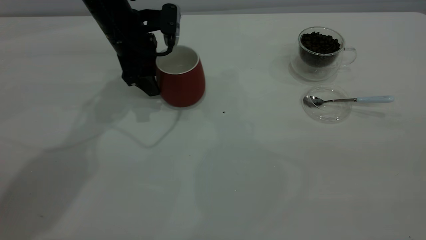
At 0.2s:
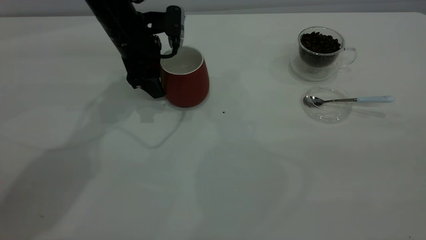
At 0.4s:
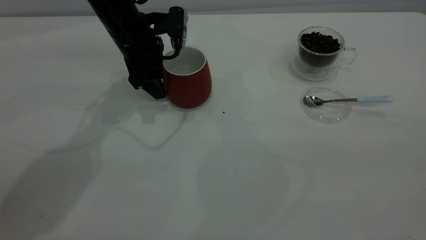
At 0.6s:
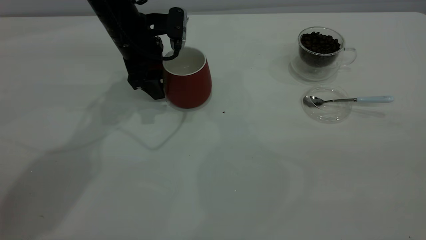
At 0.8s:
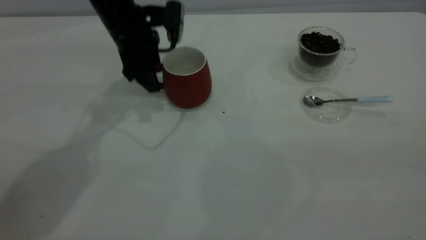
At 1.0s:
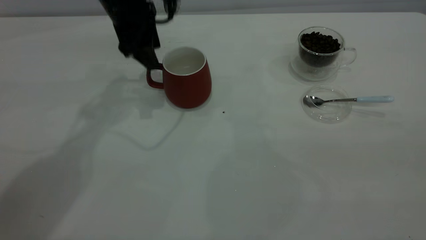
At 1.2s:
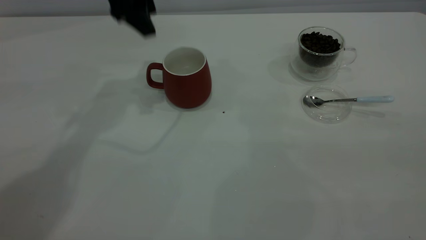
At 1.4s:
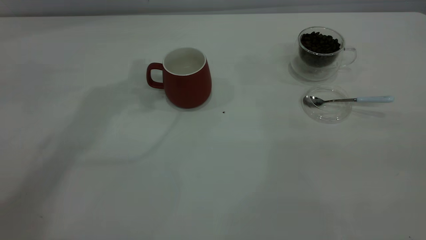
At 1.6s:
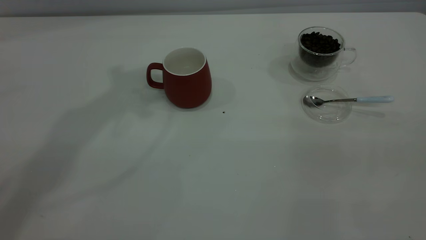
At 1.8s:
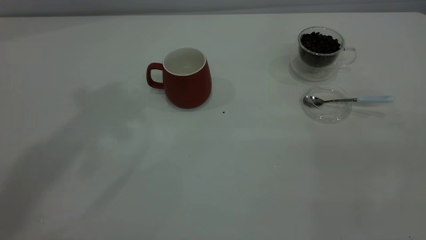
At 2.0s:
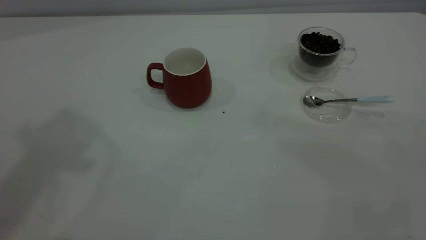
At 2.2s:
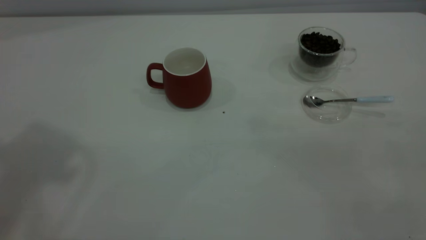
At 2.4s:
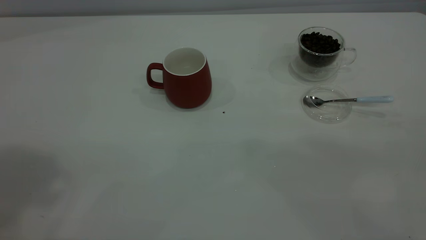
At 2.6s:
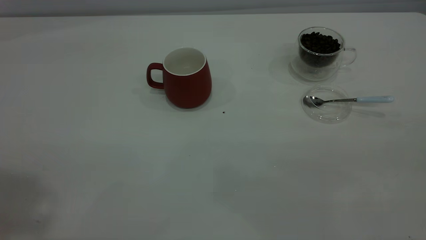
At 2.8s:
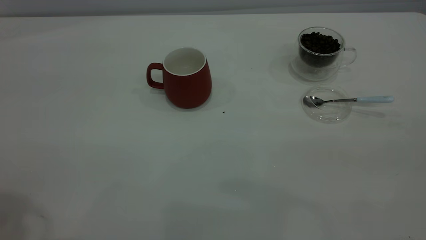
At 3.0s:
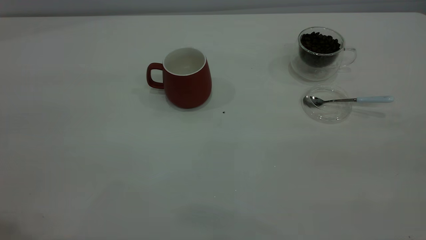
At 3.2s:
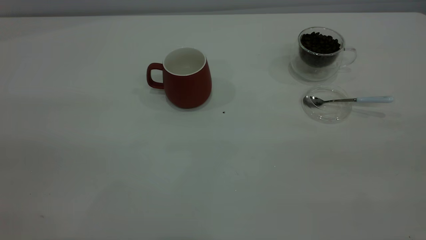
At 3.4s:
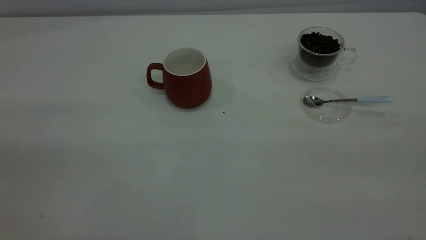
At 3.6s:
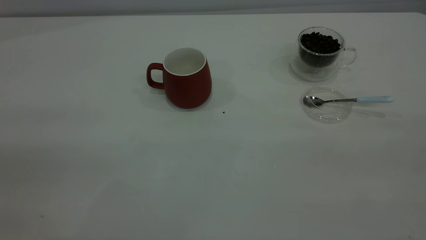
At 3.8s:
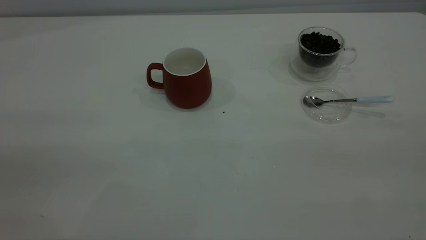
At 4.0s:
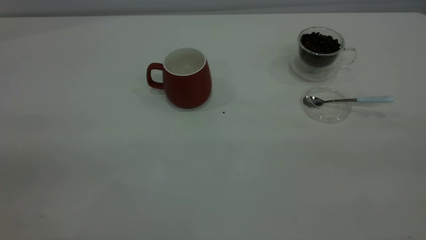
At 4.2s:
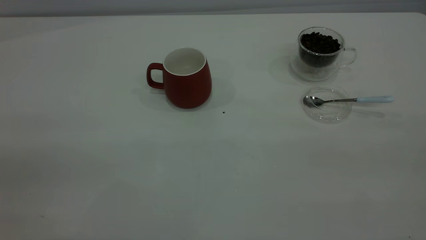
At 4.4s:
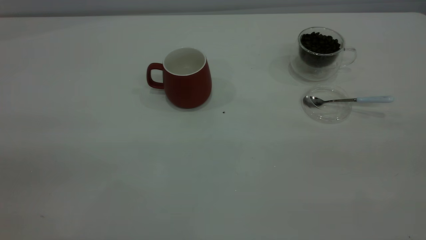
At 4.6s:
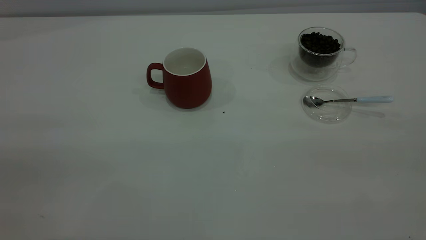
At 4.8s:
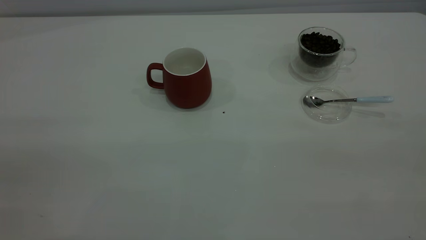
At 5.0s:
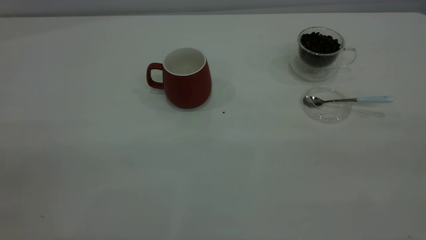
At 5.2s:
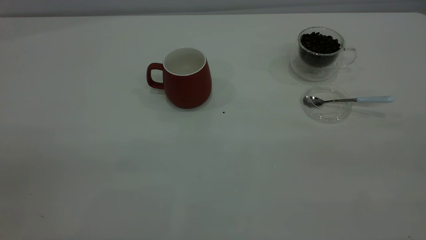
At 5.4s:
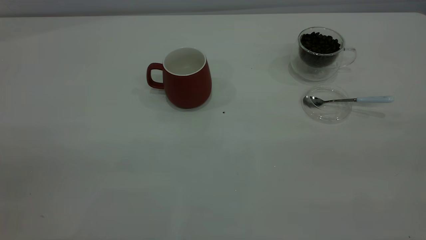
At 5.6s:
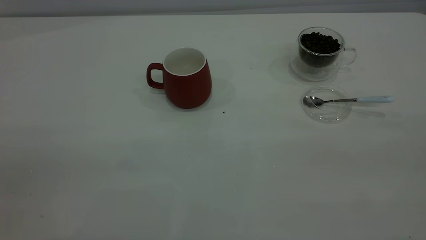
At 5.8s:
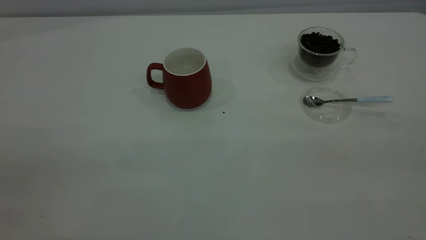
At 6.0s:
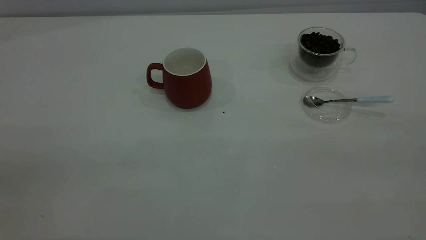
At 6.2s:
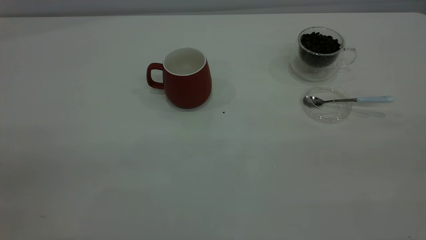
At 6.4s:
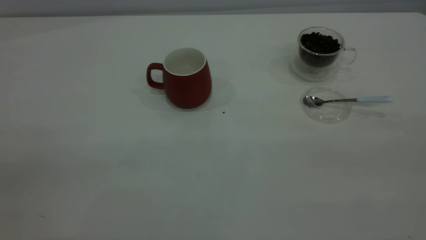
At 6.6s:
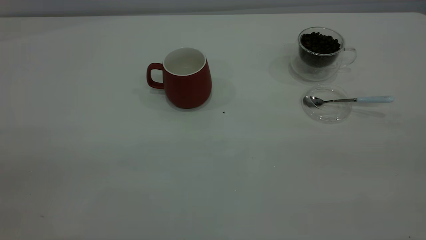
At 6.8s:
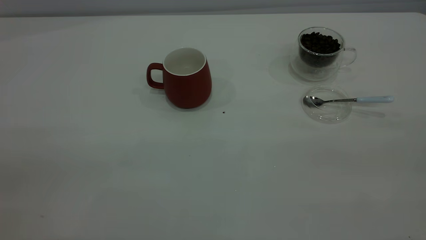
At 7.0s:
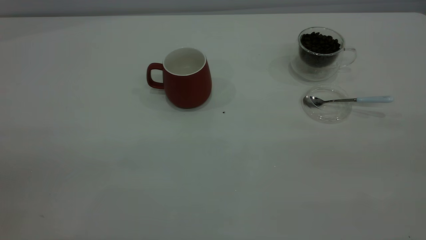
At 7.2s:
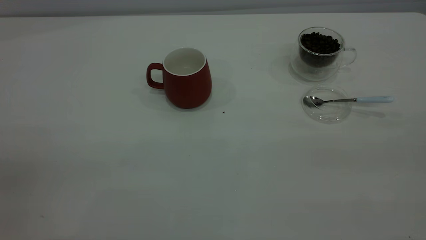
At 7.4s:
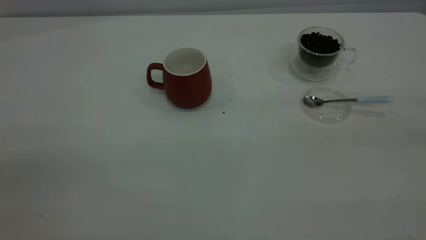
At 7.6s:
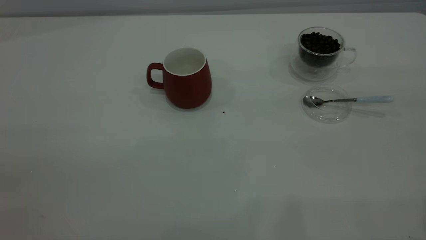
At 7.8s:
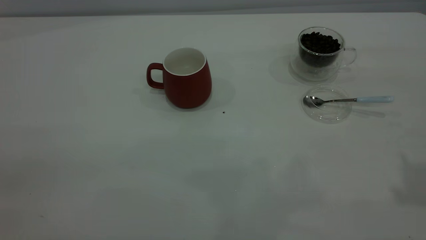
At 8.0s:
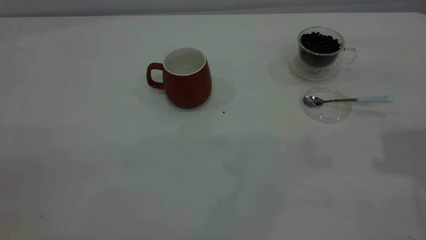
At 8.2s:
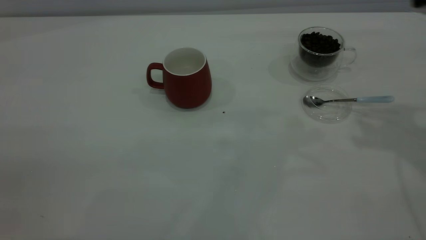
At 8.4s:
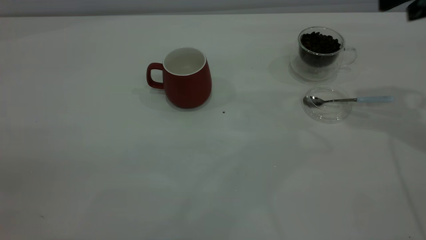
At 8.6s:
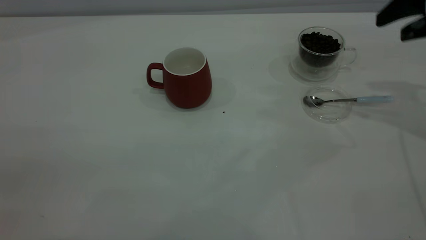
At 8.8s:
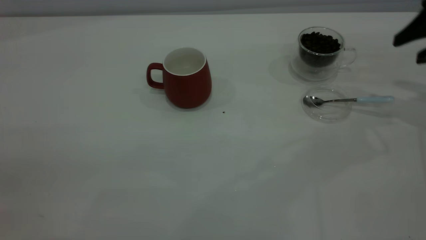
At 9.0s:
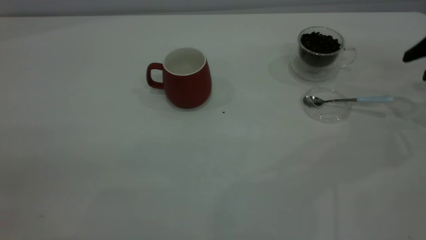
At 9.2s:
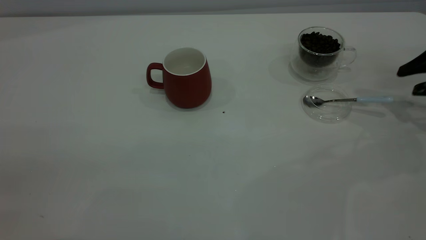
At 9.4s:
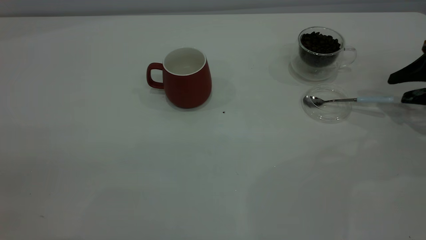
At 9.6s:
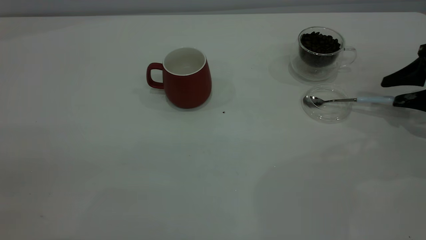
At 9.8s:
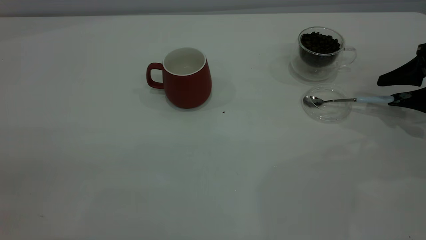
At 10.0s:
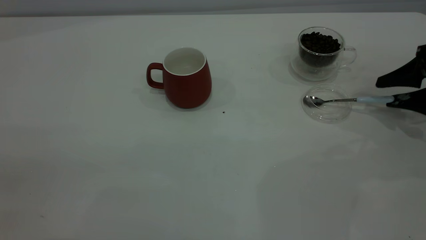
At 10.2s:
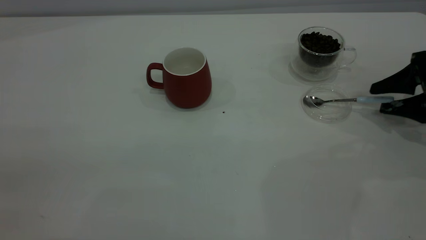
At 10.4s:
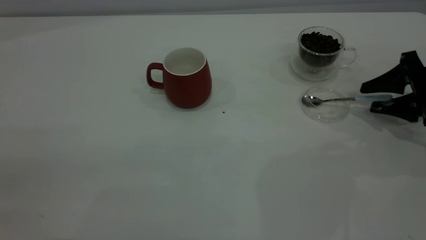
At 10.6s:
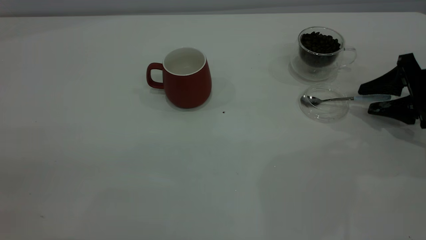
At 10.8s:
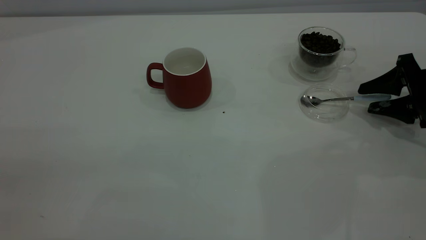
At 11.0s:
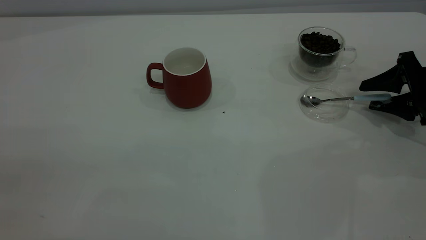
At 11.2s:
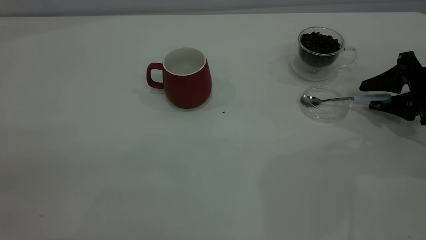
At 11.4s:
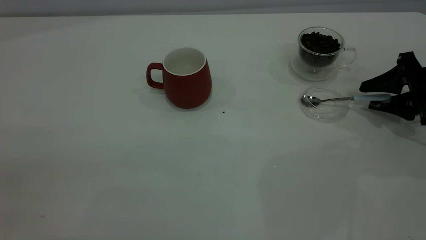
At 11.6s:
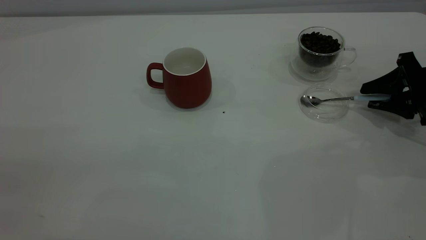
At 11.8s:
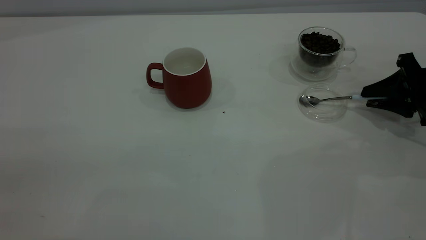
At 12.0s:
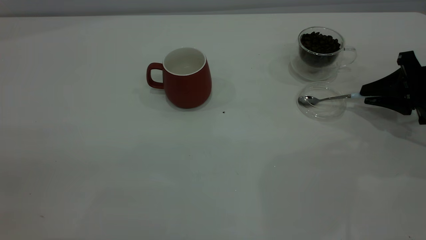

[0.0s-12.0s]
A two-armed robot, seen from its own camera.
Task of the whole recording: the left gripper place the red cup in the center of the table, the right gripper take the blue spoon from the cup lid and scoop out the coffee beans from the coffee cup and put them into the red cup, the right gripper put the spoon back into the cup lid.
0.0s to 1.6s: The left gripper moves upward, some 35 cm.
9.0s to 10.4s: The right gripper is displaced downward by roughly 10 cm.
10.4s to 12.0s: The right gripper closes.

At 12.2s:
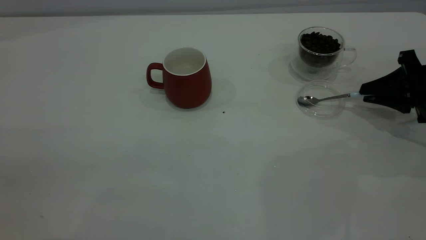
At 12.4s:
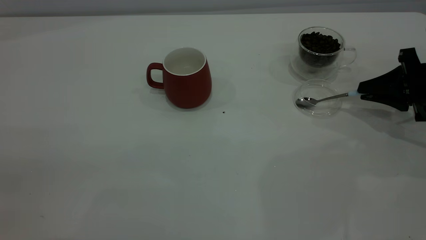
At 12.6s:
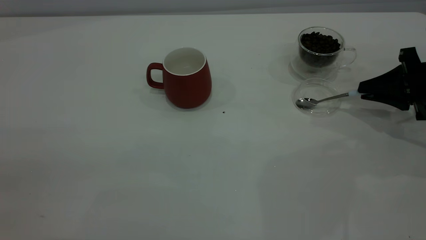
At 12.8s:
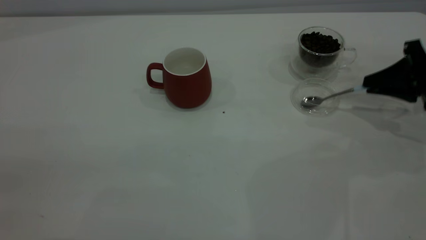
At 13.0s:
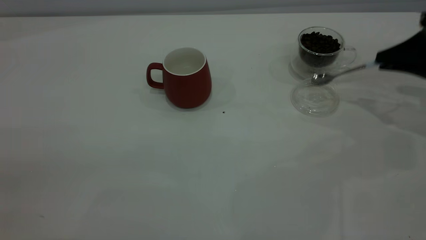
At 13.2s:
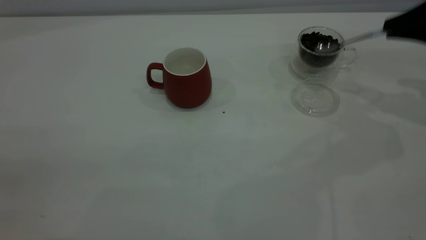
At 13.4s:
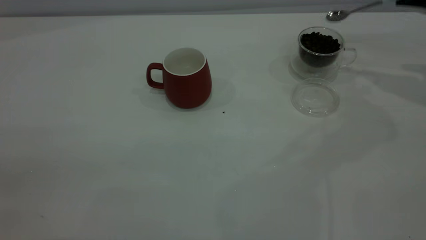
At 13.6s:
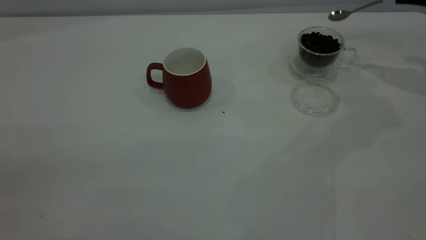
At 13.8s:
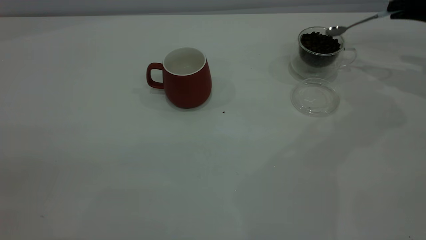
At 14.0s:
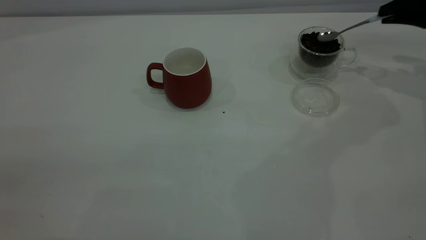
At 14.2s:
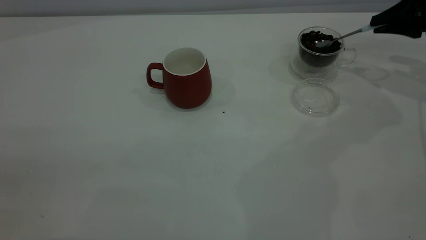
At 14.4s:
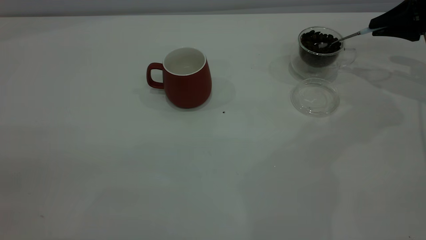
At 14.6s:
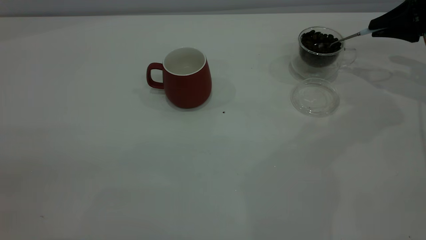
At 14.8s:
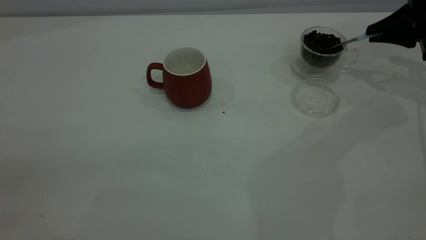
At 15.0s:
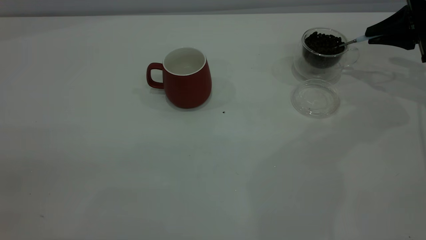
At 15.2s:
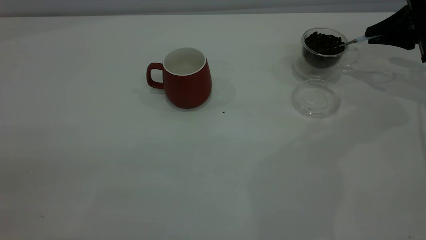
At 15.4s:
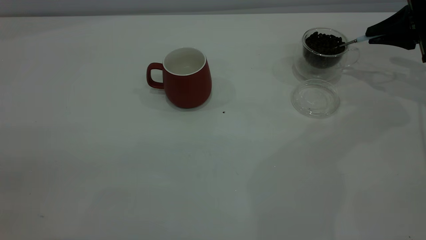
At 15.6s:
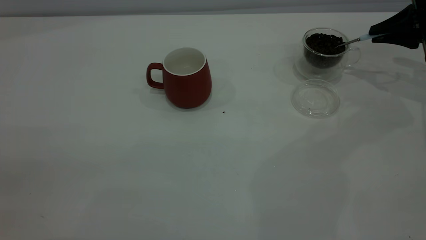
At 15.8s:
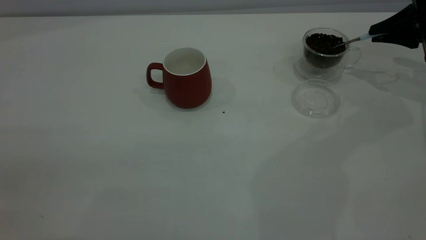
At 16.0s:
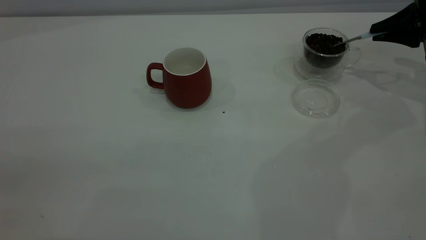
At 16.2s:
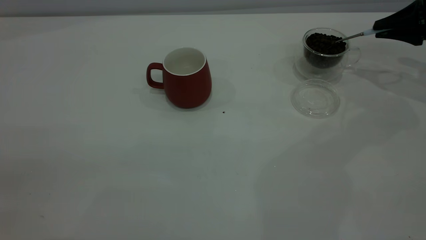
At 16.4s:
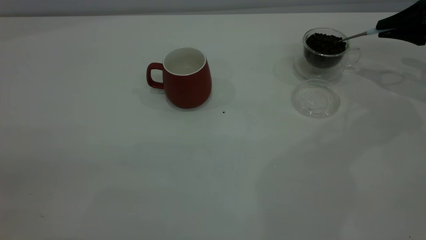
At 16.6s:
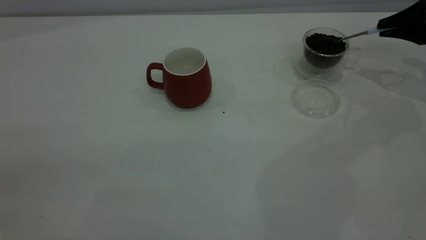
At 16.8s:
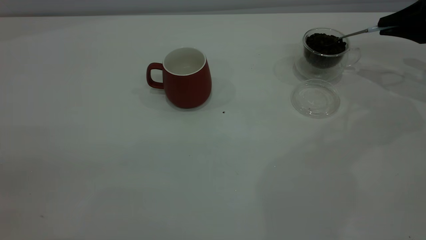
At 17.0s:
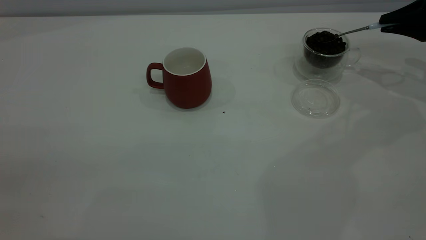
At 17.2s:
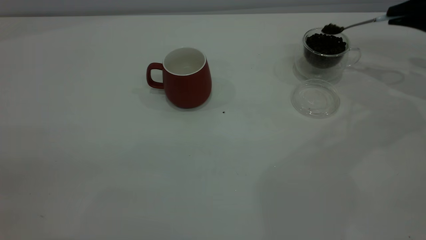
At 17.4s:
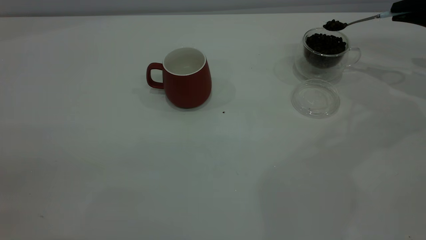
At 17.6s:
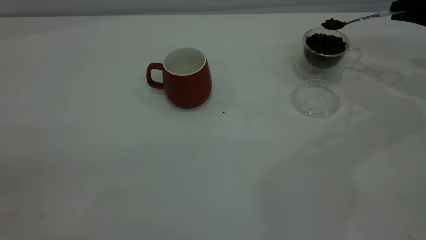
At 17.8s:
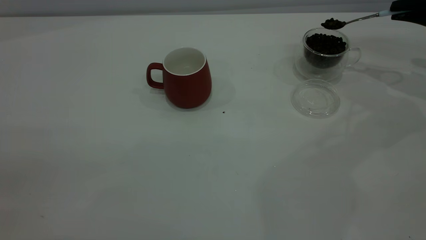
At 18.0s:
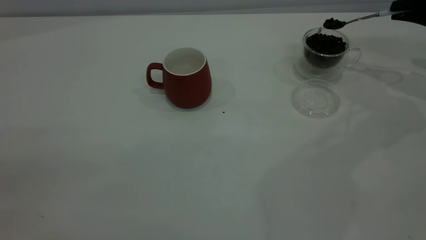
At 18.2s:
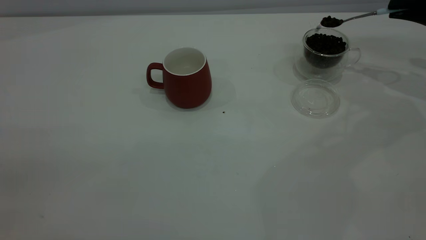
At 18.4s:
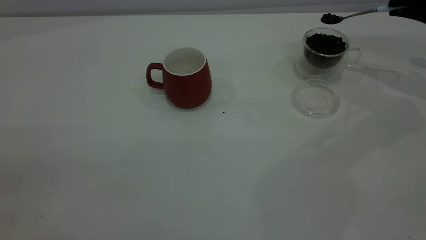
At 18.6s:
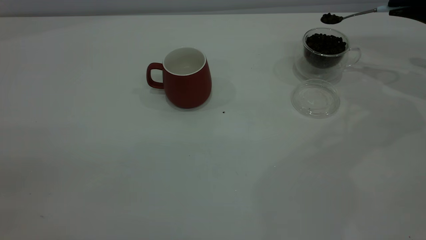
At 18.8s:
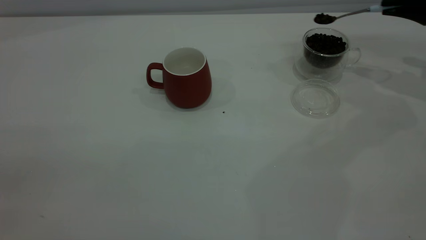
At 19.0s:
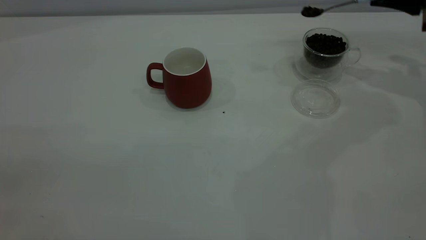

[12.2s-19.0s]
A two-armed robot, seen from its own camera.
Task of the whole recording: the left gripper place the red cup in the center of the table, the right gripper take the blue spoon from the cup lid and scoop out the coffee beans from the coffee cup and put them into the red cup, the right gripper put the spoon back into the cup lid.
12.2s to 13.6s: The right gripper is displaced upward and forward by some 15 cm.
13.6s to 15.0s: The right gripper moves downward, about 5 cm.
16.2s to 17.6s: There are only small adjustments of the grippers.
17.6s to 19.0s: The right gripper changes place by approximately 5 cm.
